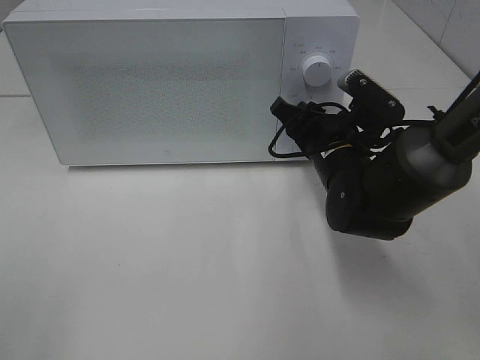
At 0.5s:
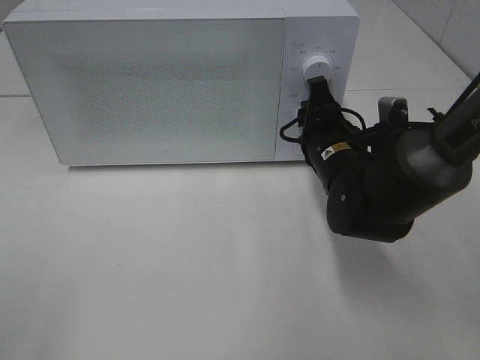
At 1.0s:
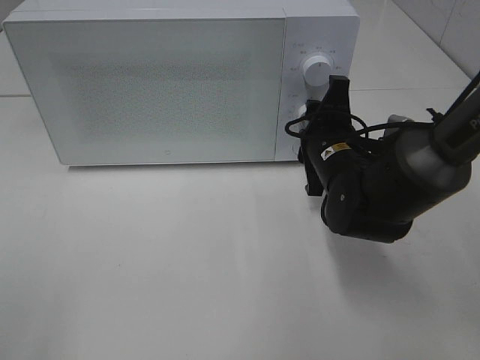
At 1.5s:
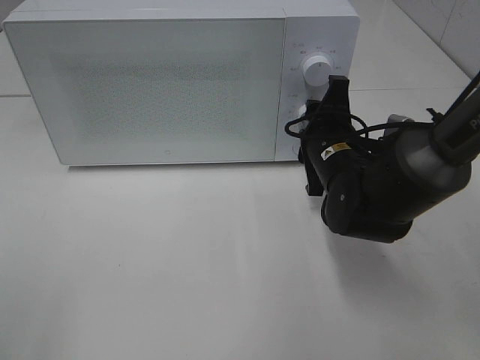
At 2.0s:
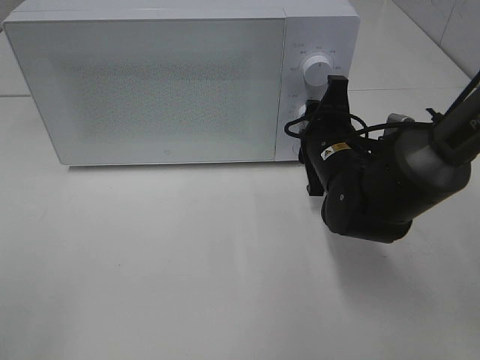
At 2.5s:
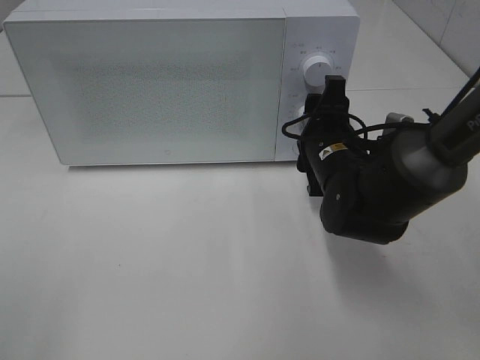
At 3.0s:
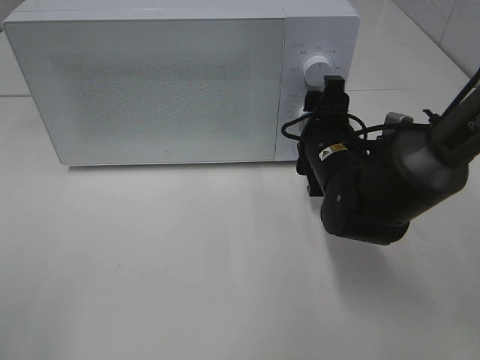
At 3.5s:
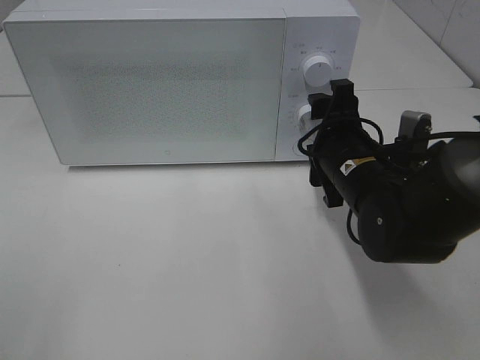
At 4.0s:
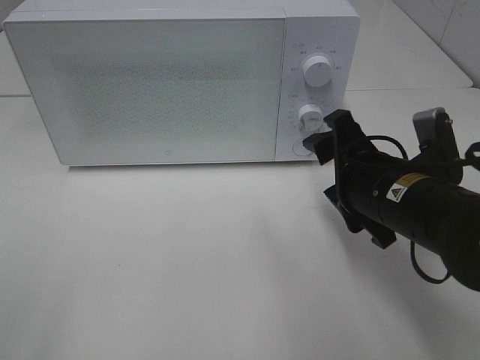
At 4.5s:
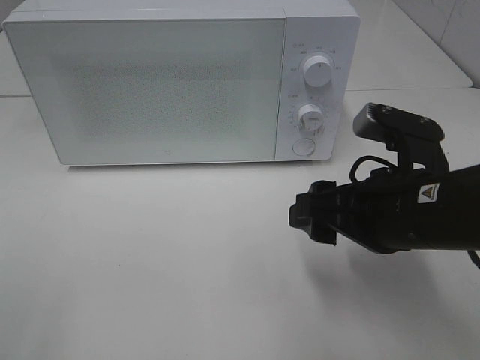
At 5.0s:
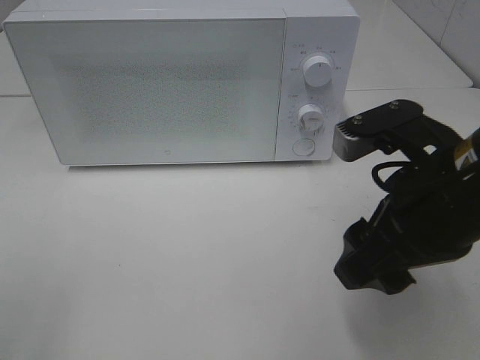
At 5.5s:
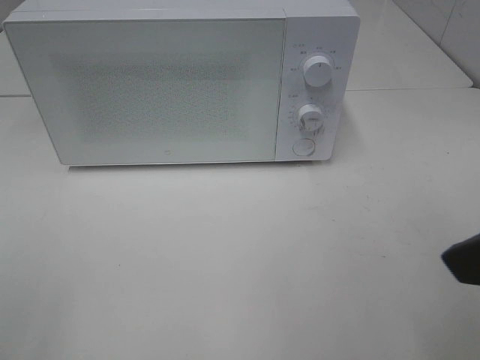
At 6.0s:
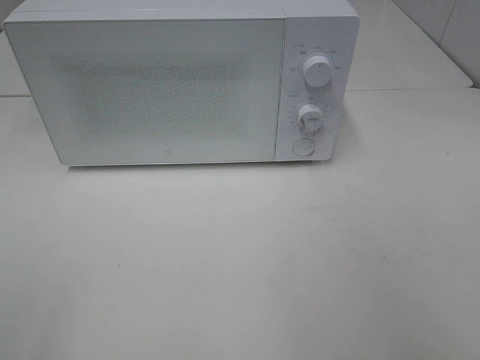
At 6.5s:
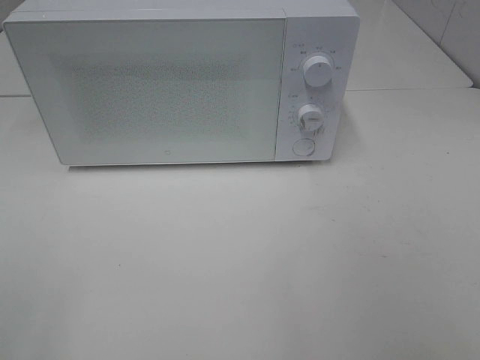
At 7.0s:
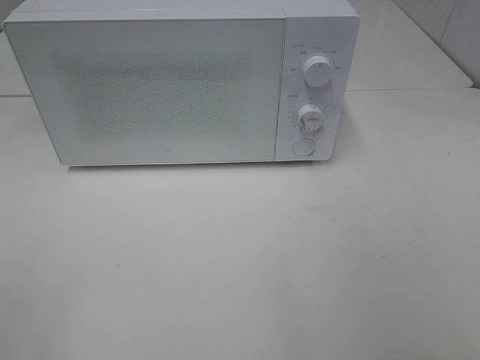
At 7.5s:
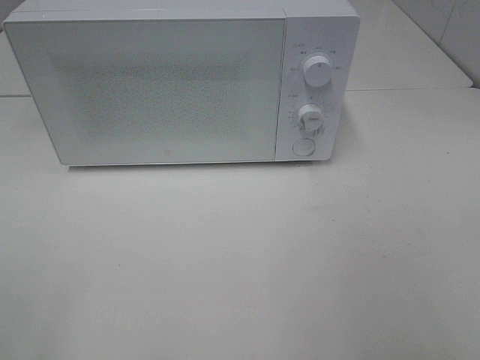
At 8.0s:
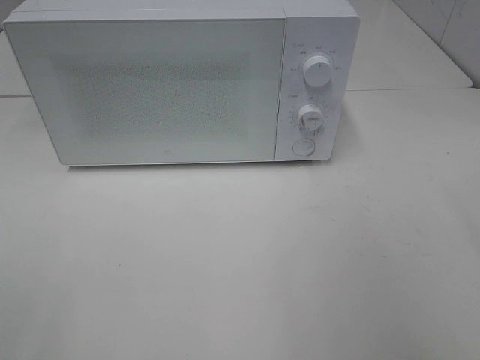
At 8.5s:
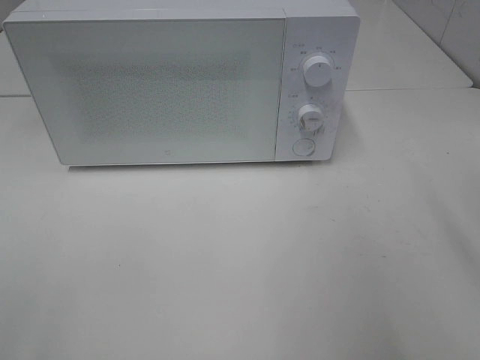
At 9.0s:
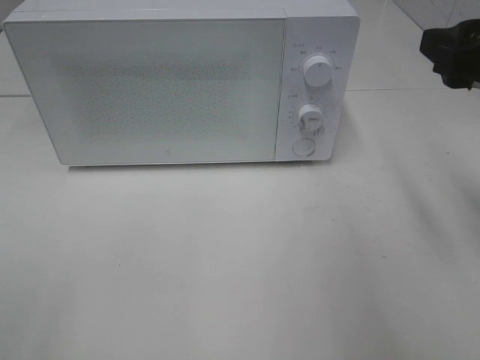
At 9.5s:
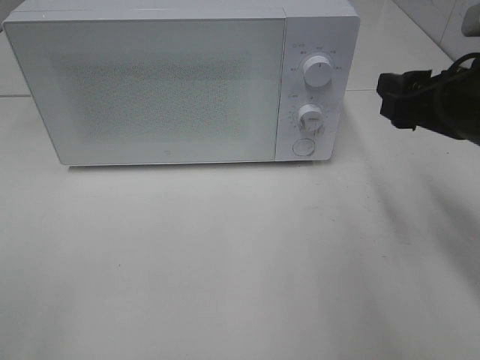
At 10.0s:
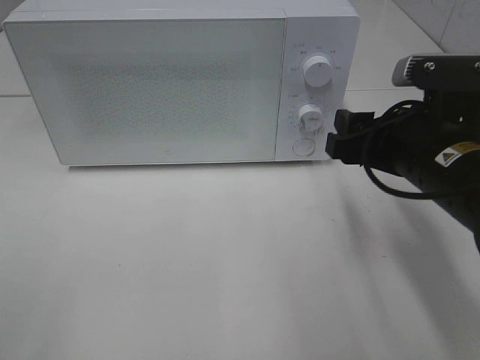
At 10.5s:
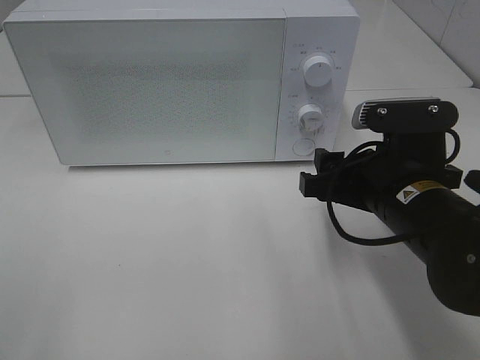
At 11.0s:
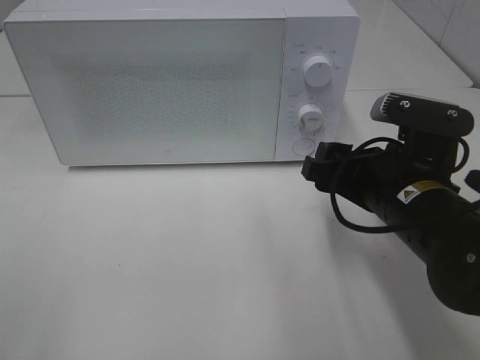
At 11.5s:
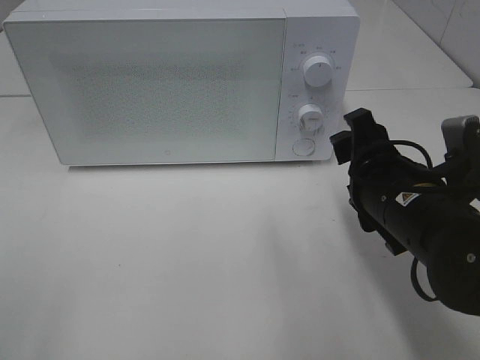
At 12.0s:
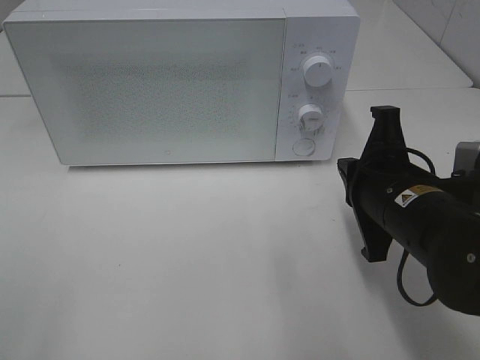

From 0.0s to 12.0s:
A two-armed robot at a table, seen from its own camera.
Task of the whole recording: Heat Sandwich.
Step, from 0.0s to 3.0s: Right hand: twist timer button.
From 2.0s to 4.0s: The right gripper moves backward, roughly 10 cm.
From 4.0s to 6.0s: The right gripper travels backward, upward and to the right by approximately 30 cm.
From 8.0s to 10.0s: The right gripper travels forward, downward and to the left by approximately 20 cm.
From 10.0s to 12.0s: The right gripper closes up.

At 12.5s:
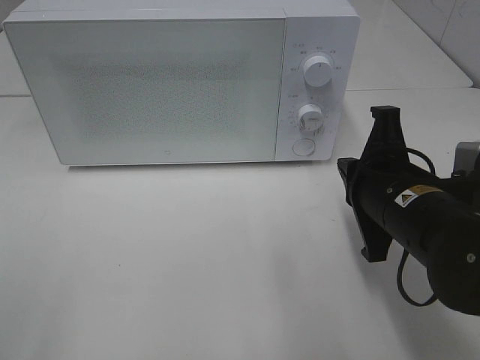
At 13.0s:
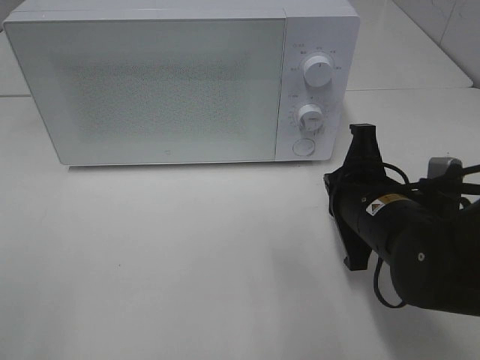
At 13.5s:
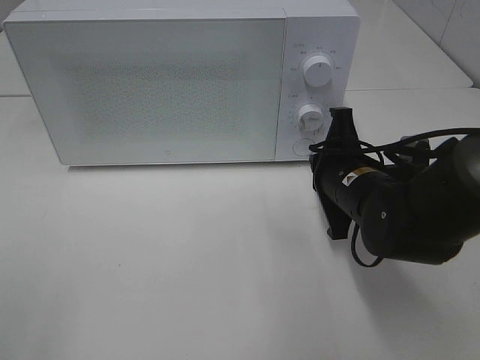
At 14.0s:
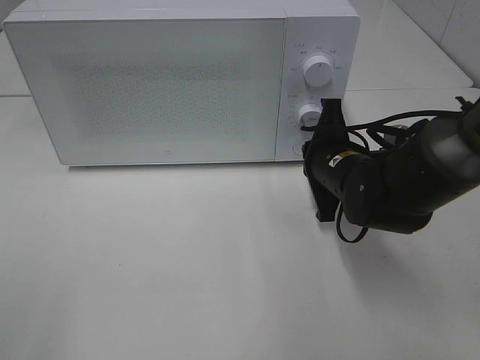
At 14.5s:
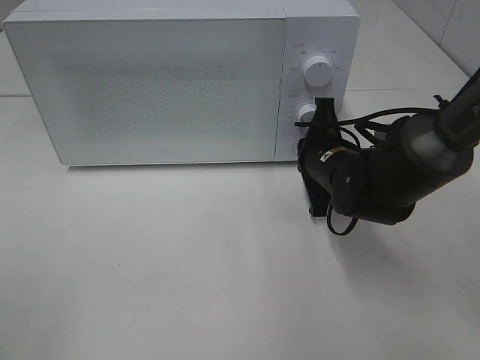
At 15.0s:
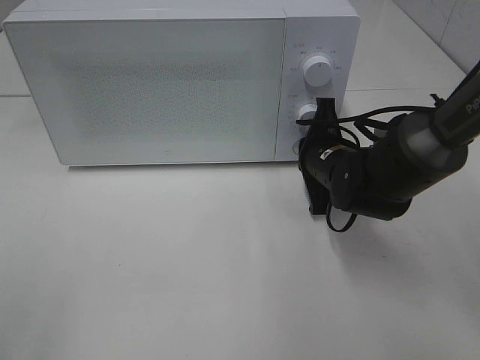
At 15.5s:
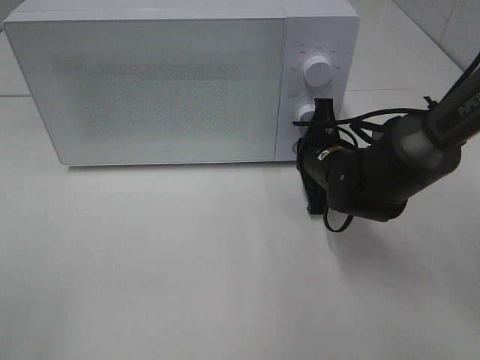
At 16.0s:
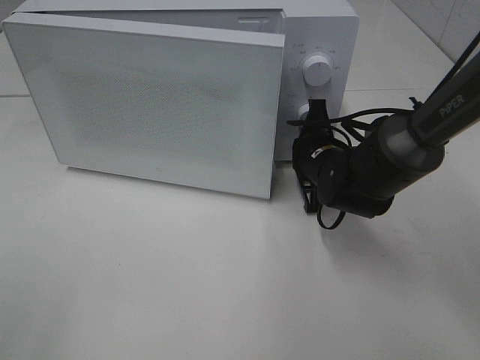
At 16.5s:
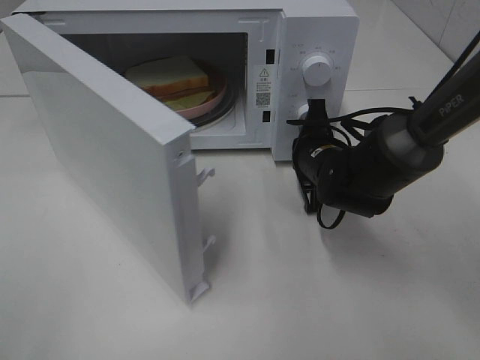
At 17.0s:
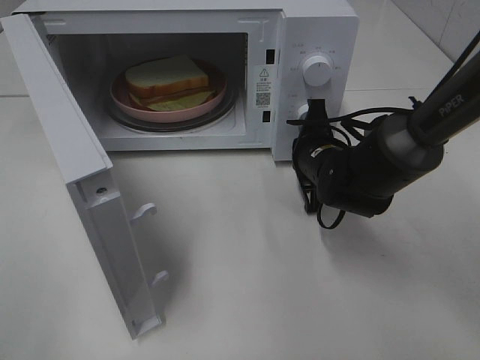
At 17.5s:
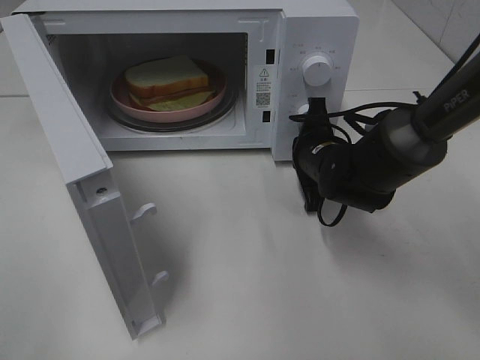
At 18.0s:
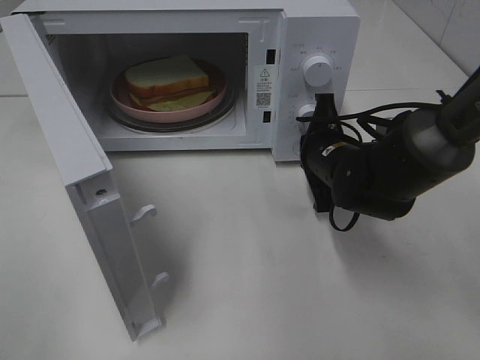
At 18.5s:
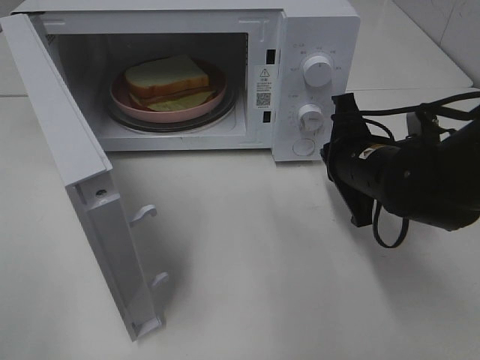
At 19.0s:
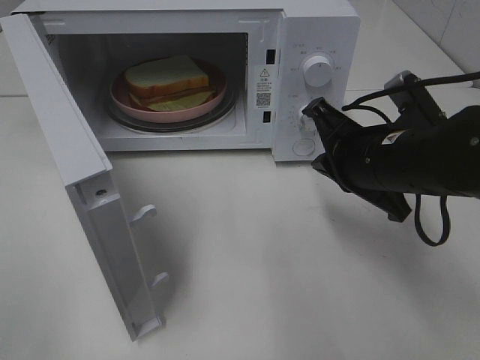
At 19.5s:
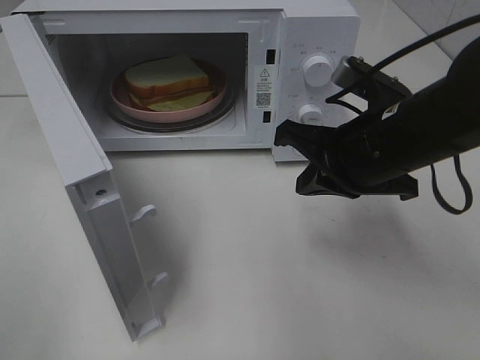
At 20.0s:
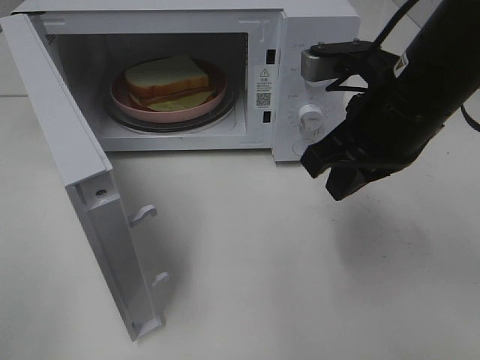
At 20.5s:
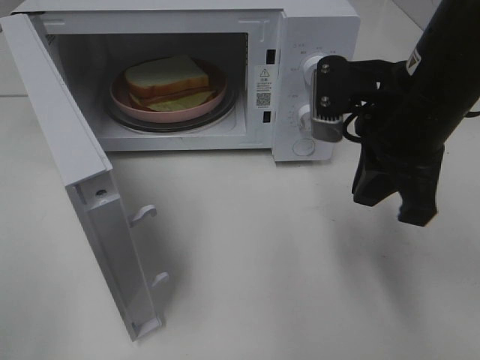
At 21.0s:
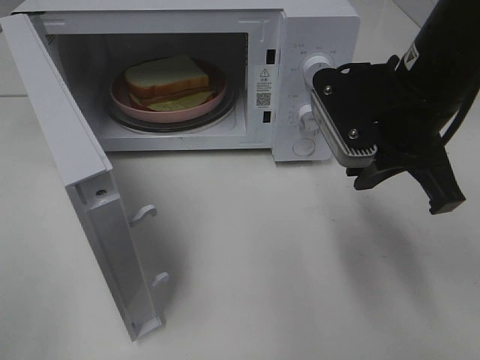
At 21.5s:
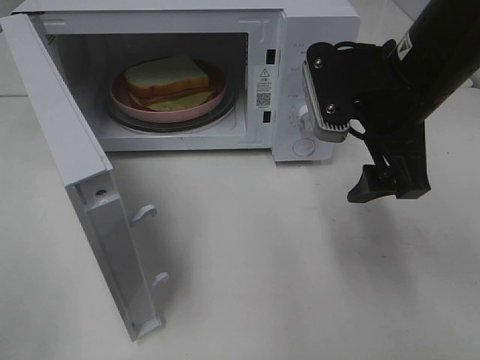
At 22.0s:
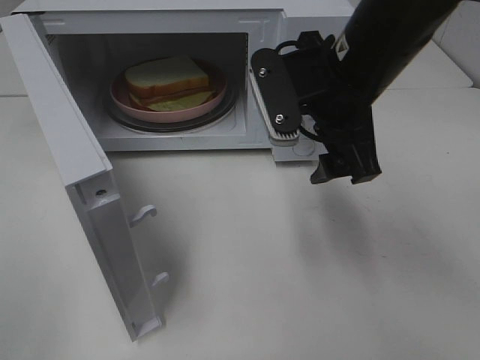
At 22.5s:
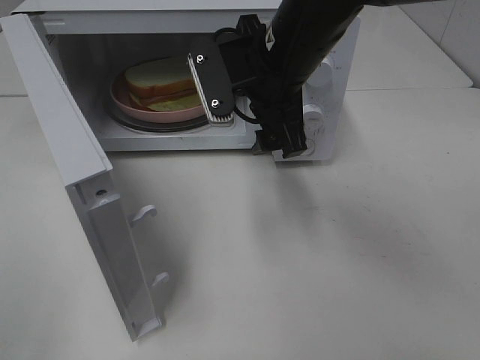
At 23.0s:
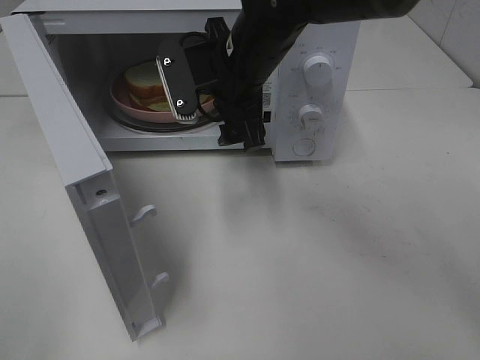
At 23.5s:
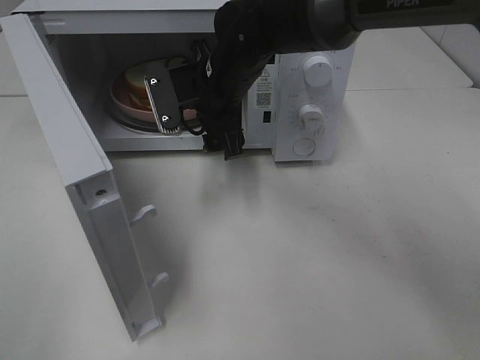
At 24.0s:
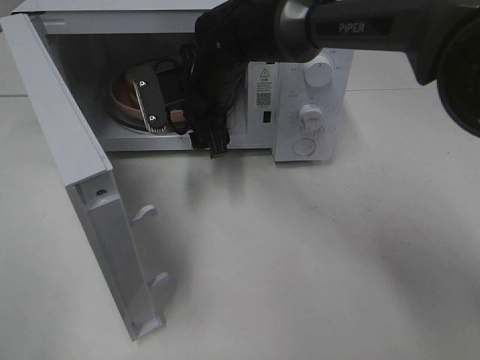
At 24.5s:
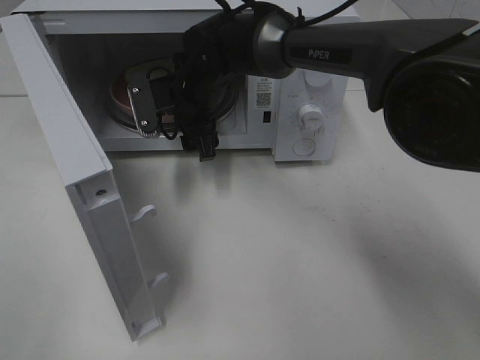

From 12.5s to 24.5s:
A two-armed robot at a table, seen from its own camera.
Task of the whole recording: Heat Sandwich.
Step, from 12.5s to 18.0s: Right hand: press the switch.
From 12.5s to 14.5s: The right gripper goes some 15 cm forward and downward.
From 16.5s to 18.5s: The right gripper heads backward and upward, covering roughly 10 cm.
From 18.5s to 20.5s: The right gripper moves upward, some 10 cm.
From 20.5s to 22.5s: The right gripper shifts approximately 15 cm to the left and forward, and opens up.
From 22.5s to 24.5s: The right gripper goes approximately 15 cm forward, downward and to the left.

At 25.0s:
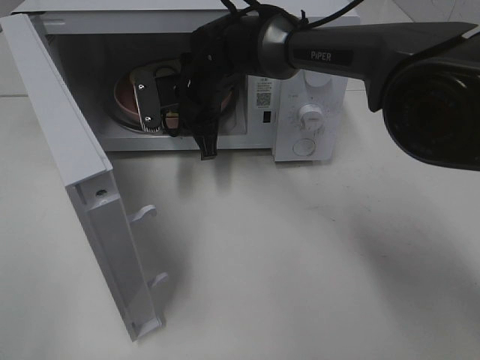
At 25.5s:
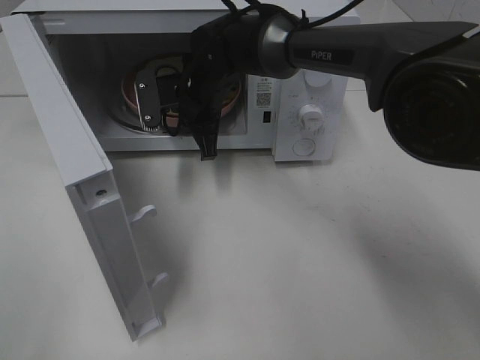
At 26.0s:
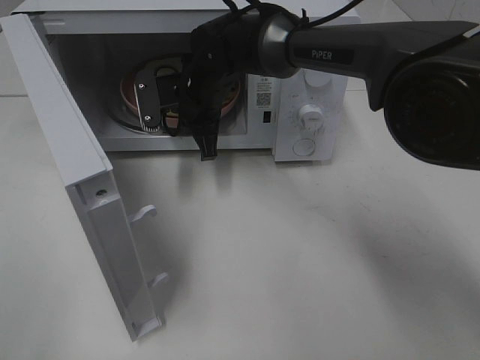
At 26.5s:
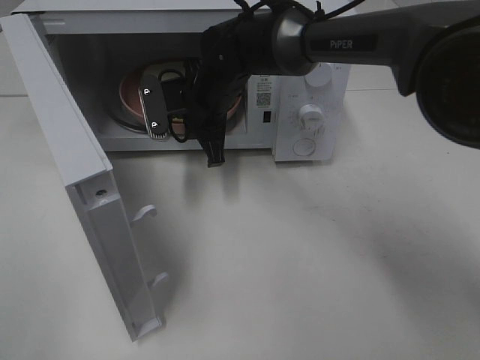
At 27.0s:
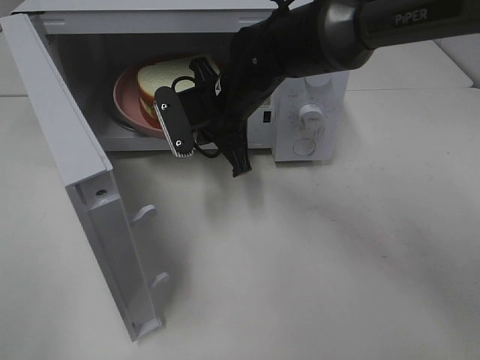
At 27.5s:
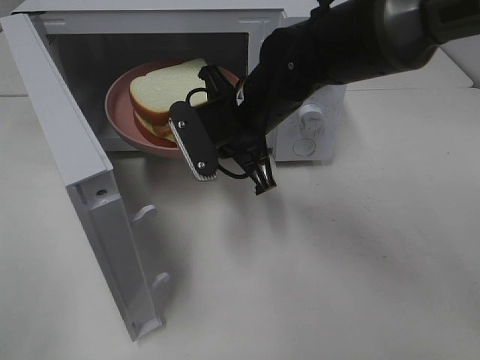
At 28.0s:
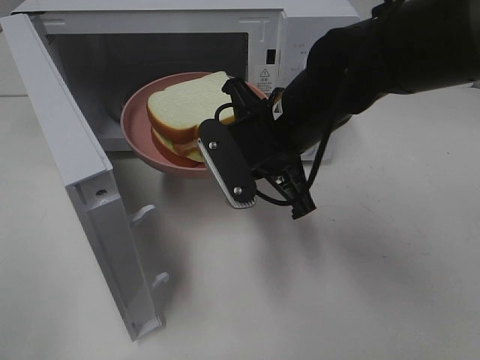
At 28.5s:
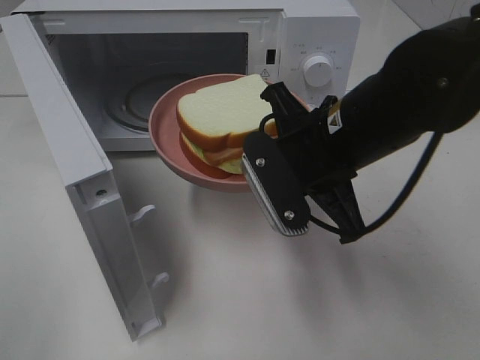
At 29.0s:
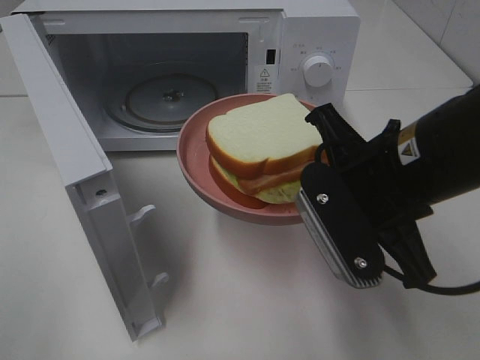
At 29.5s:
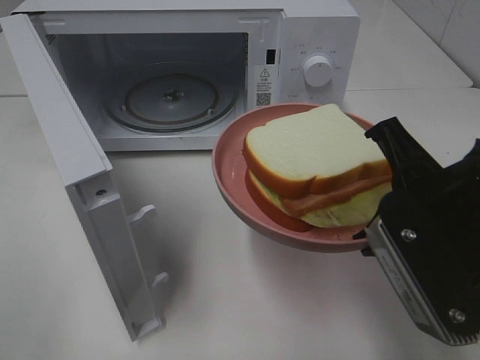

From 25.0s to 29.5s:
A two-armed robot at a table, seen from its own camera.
Task of the whole recording: Heat Sandwich.
From 25.0s to 27.0s: The right gripper heads backward, covering roughly 5 cm.
From 27.0s to 29.5s: The right gripper shifts roughly 30 cm backward and to the right.
